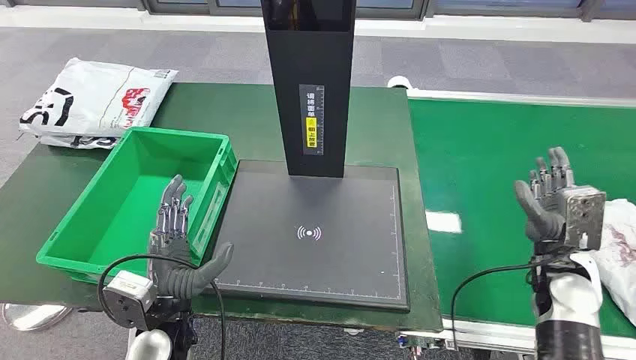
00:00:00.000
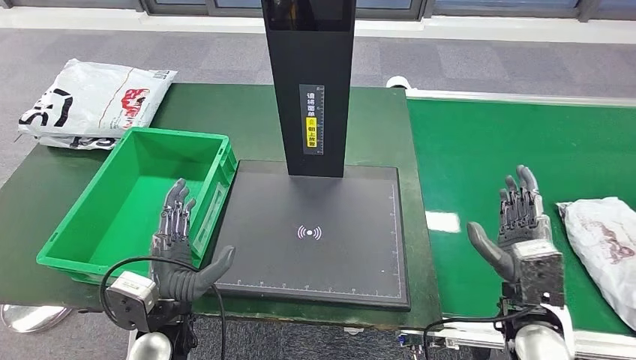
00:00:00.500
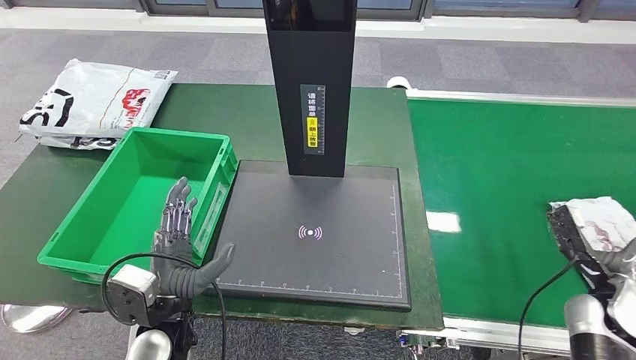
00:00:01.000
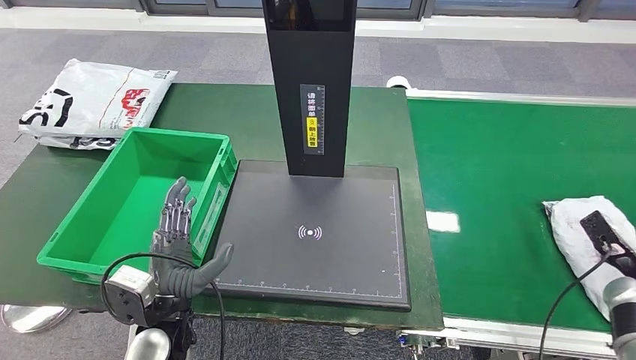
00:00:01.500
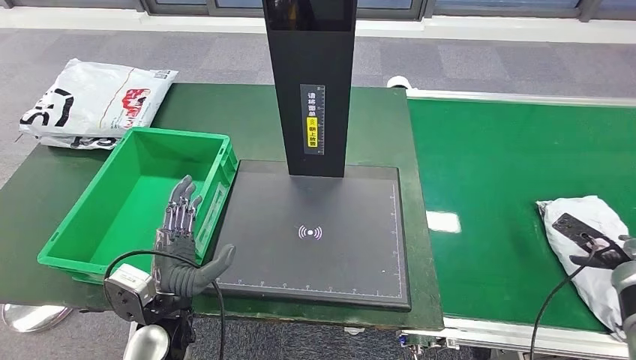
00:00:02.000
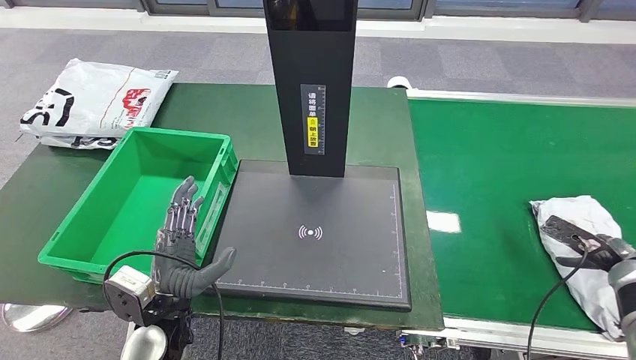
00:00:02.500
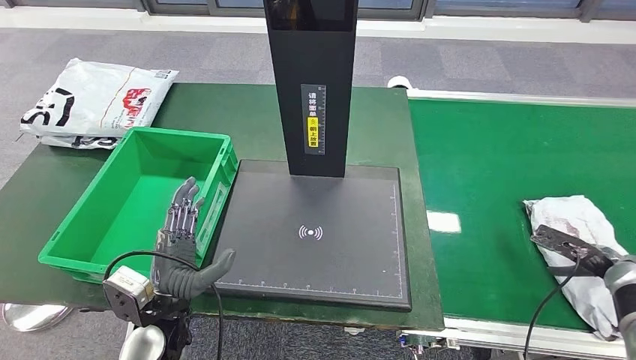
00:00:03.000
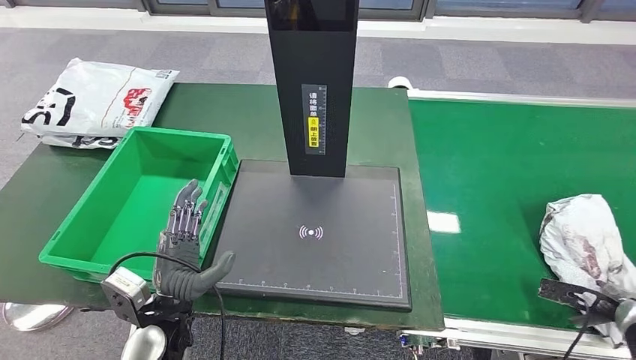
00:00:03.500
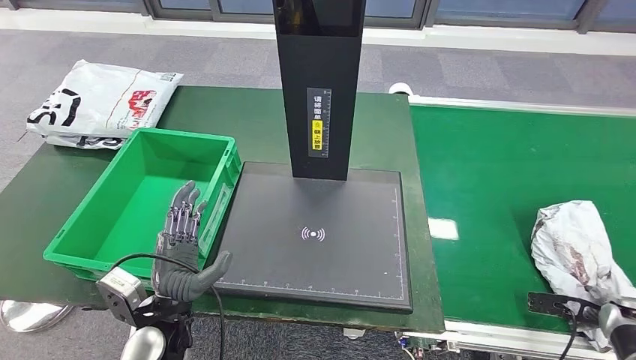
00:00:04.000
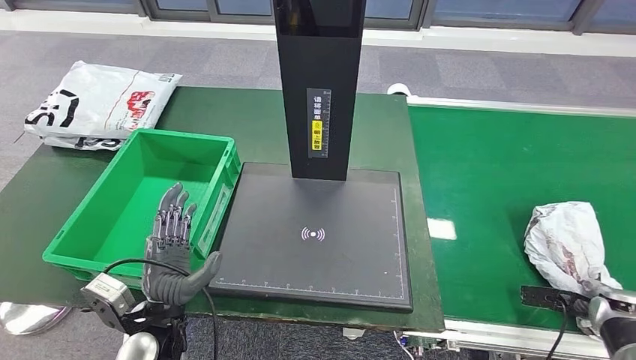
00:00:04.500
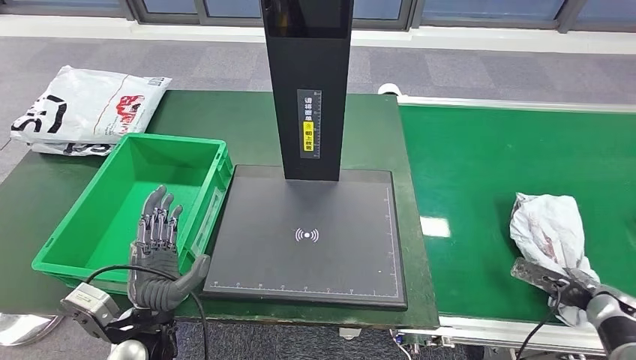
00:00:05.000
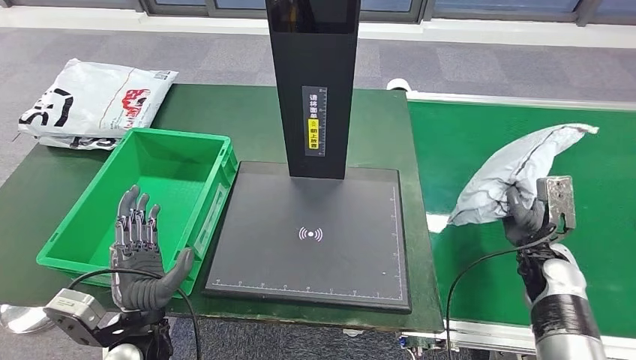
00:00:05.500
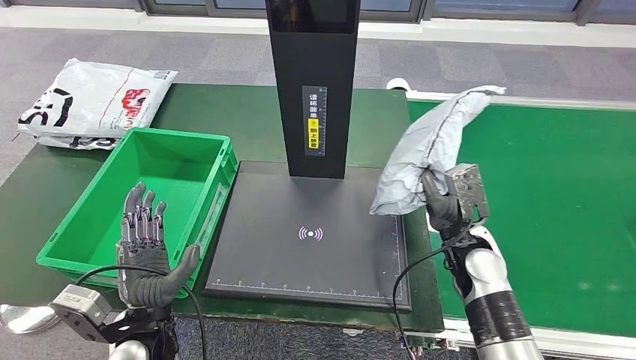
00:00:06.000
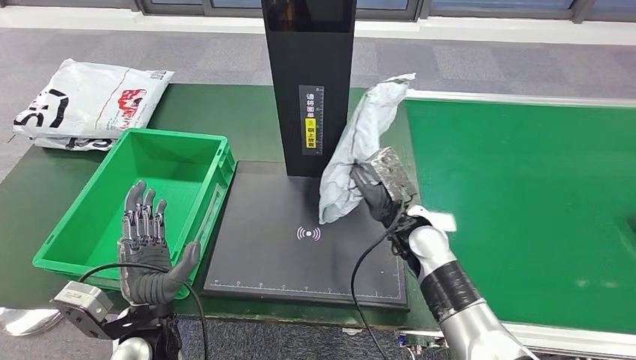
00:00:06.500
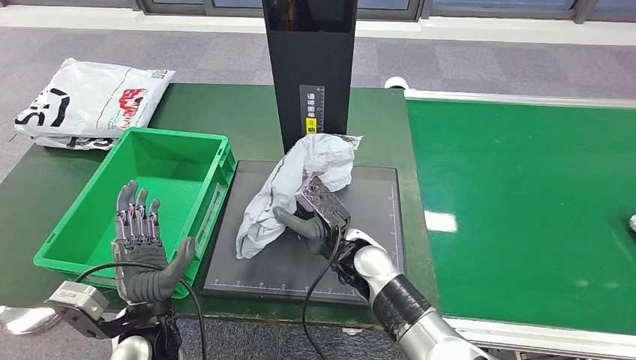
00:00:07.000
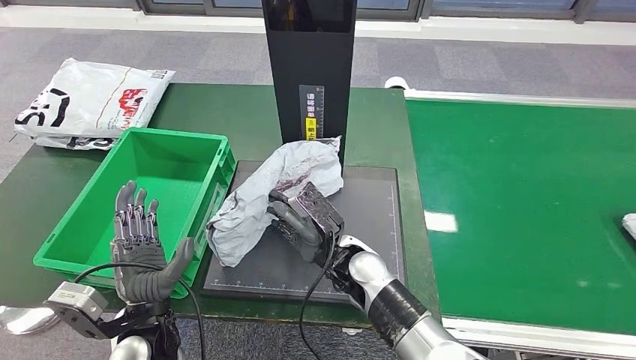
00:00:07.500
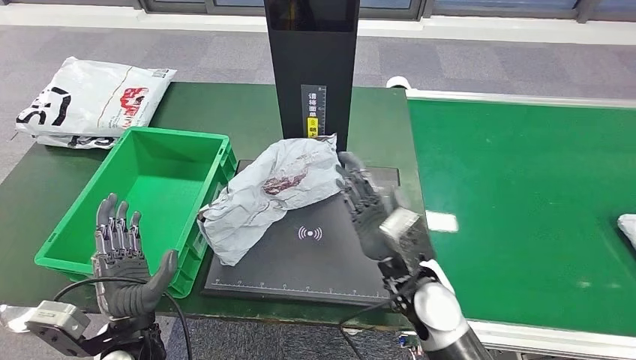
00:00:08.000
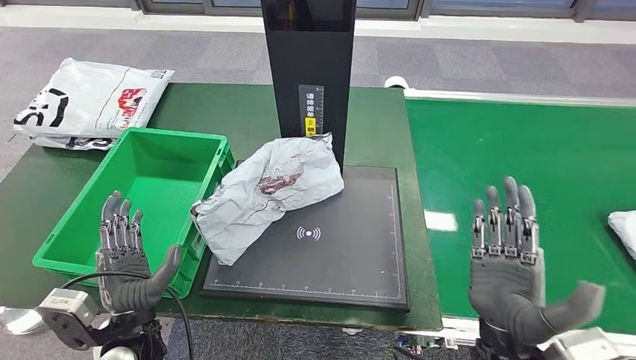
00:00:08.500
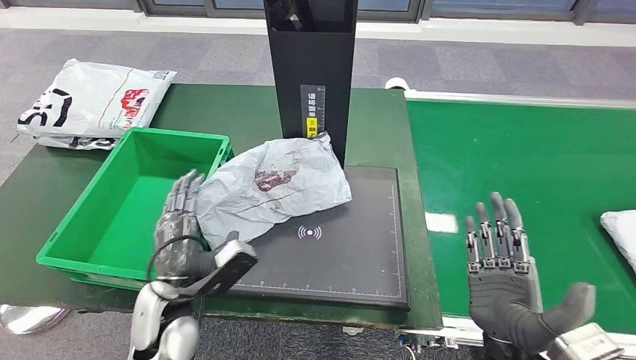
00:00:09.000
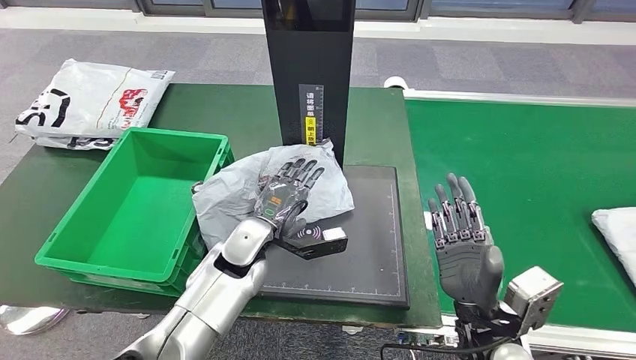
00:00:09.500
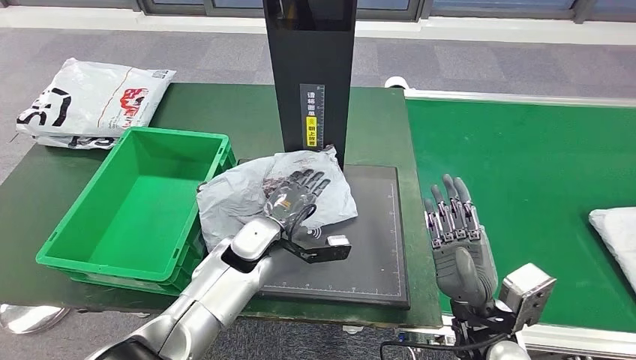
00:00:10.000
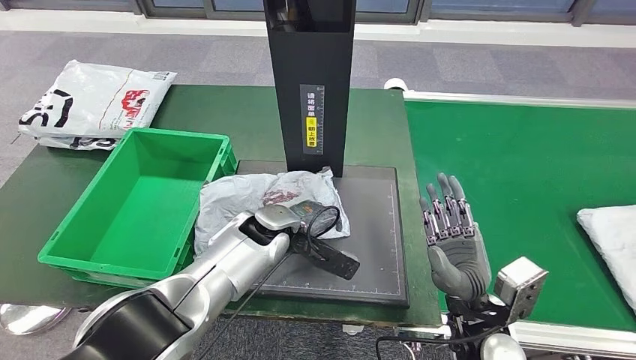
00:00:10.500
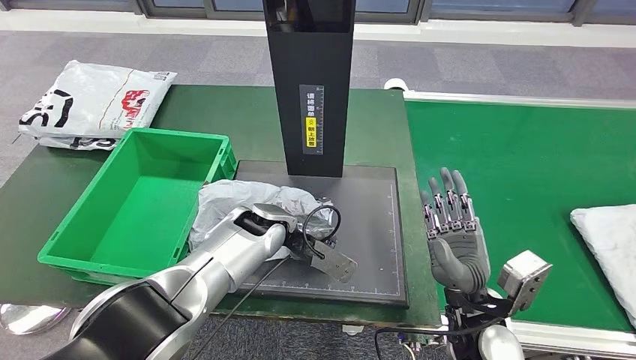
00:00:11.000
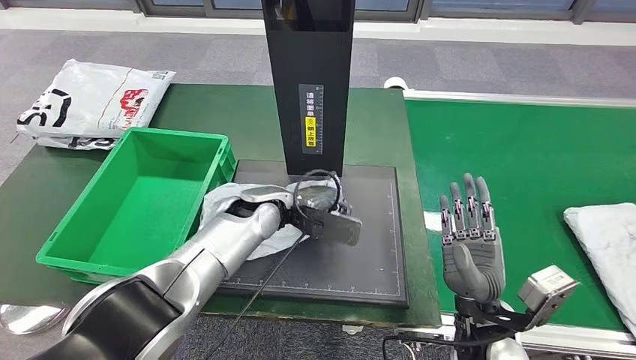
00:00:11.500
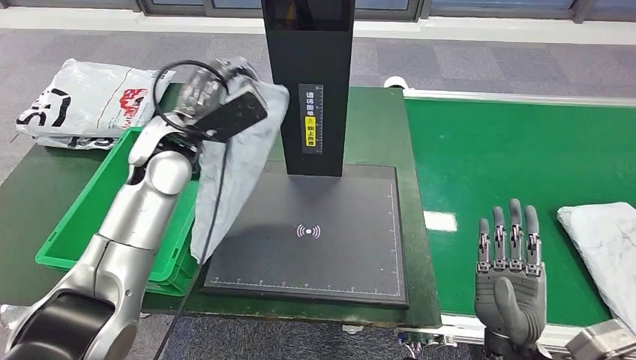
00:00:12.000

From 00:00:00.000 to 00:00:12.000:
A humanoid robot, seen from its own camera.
Step, from 00:00:00.000 to 00:00:06.000: Take the parcel off the conveyor belt.
Step, from 00:00:07.000 to 00:00:09.000: Place the parcel onto the inbound machine.

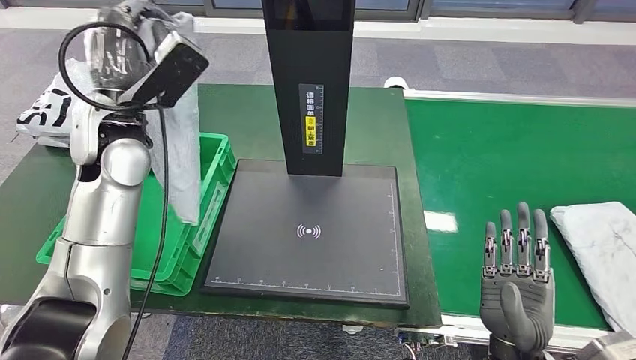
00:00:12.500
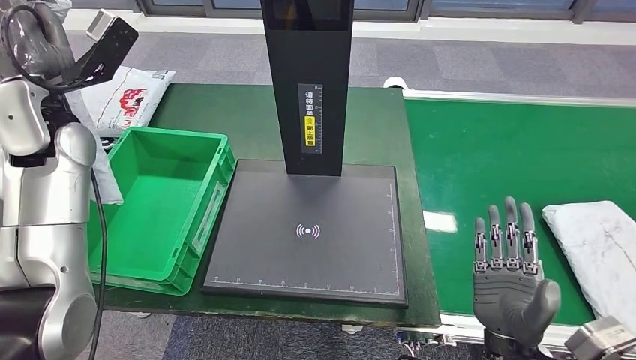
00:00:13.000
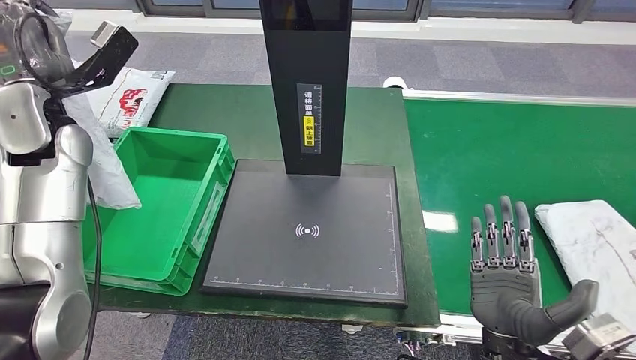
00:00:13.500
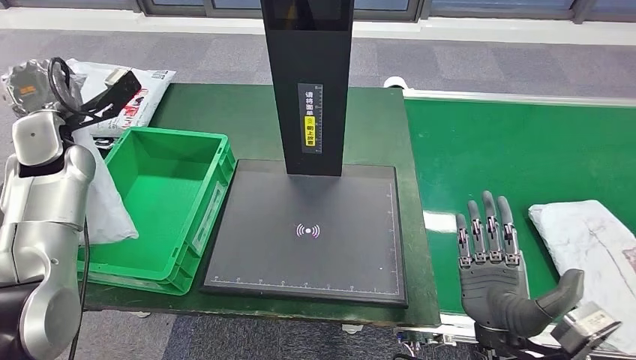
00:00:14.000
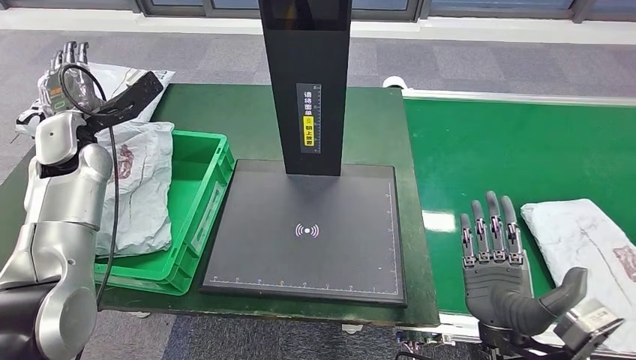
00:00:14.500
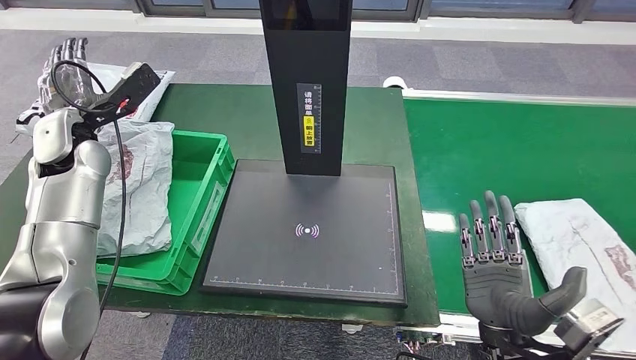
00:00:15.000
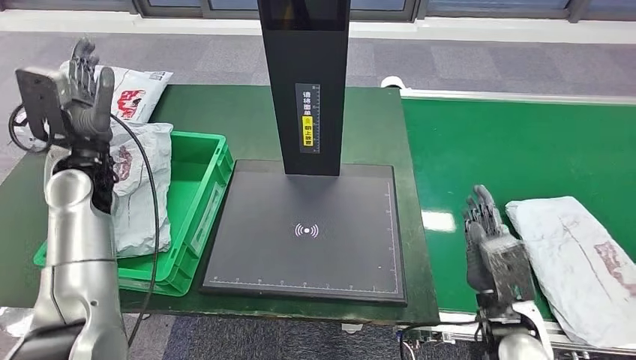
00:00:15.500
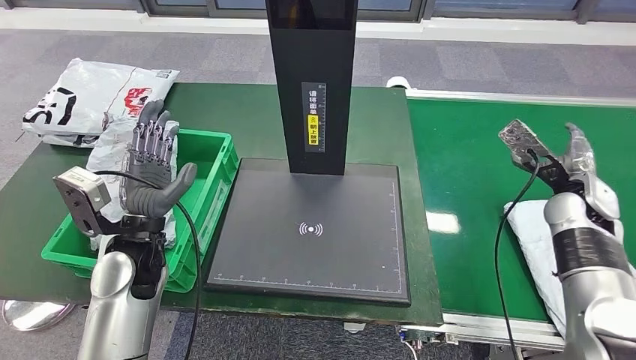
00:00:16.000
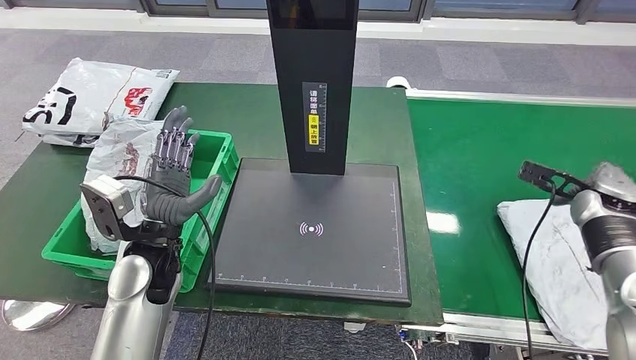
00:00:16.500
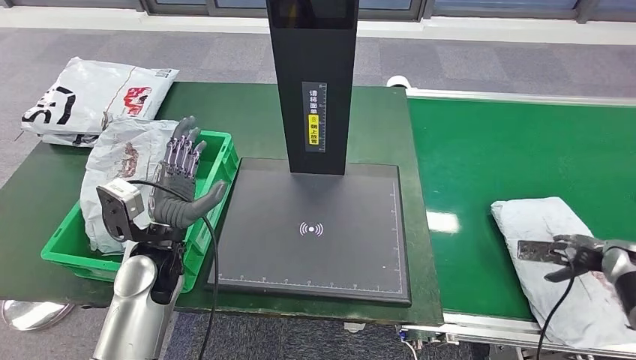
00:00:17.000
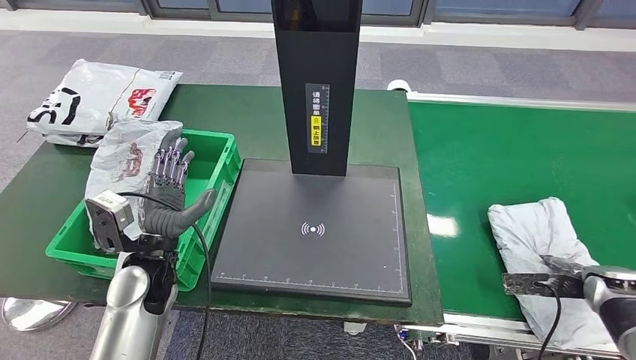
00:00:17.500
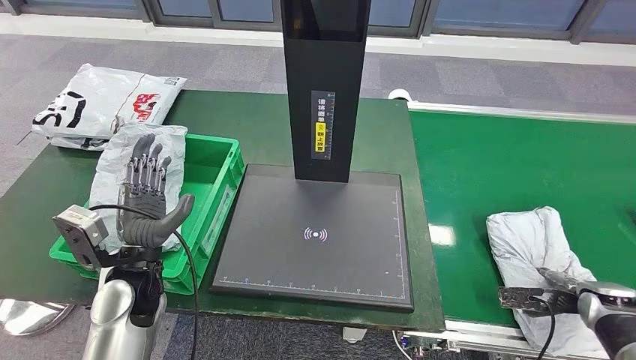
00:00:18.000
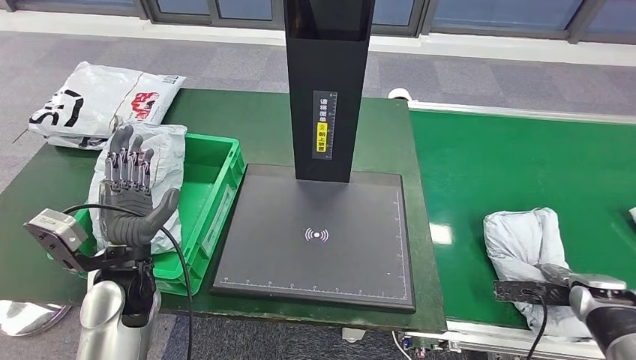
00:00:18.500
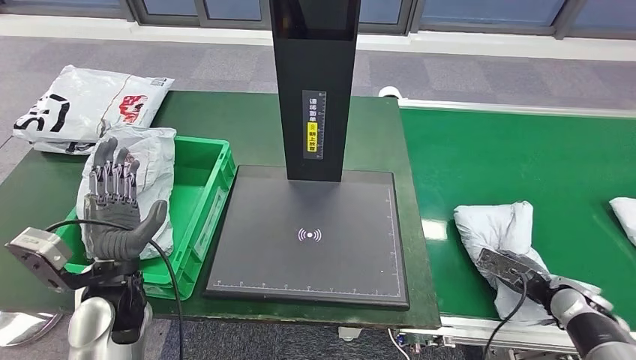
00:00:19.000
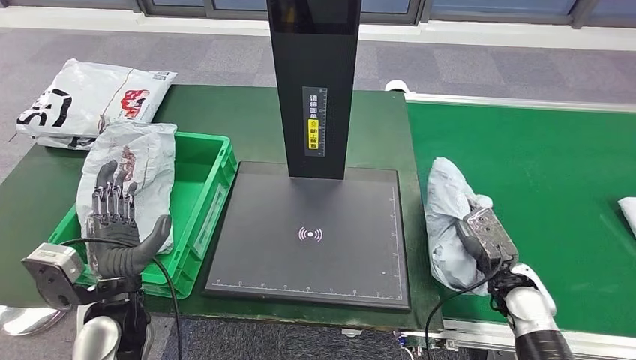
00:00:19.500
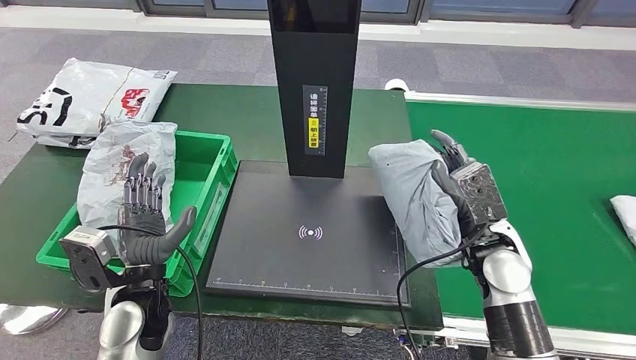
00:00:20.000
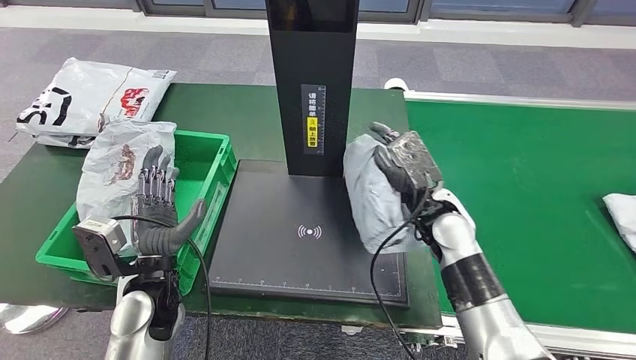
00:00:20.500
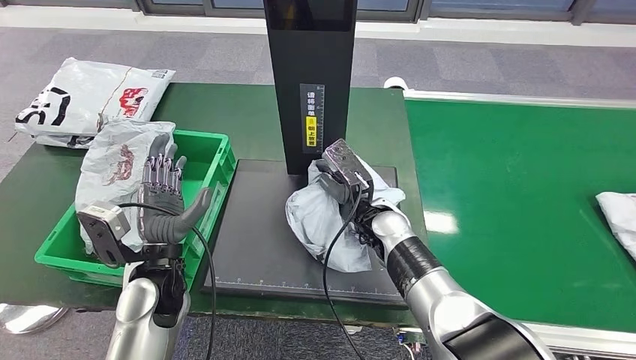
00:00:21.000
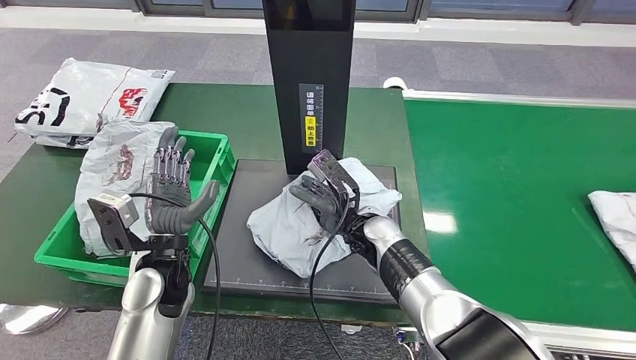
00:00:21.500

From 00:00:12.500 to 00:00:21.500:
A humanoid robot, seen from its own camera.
Step, from 00:00:14.000 to 00:00:17.000: Put the parcel inside the courier box.
Step, from 00:00:17.500 to 00:00:19.500: Pick up the parcel from the conveyor belt.
Step, from 00:00:20.000 to 00:00:21.500: Place the parcel onto the inbound machine.
